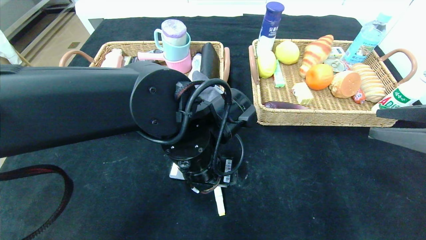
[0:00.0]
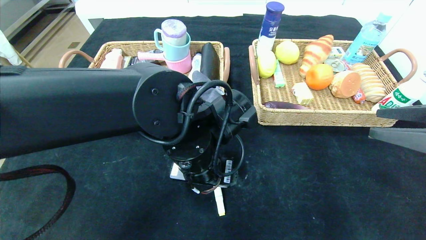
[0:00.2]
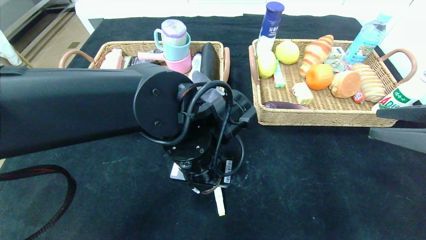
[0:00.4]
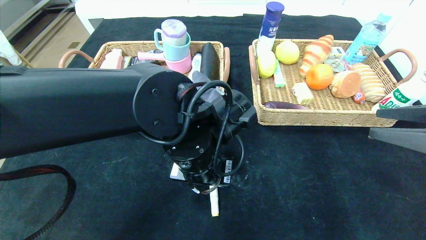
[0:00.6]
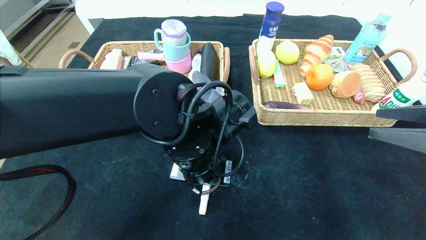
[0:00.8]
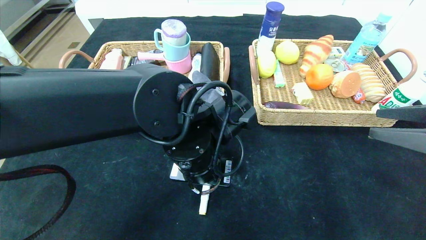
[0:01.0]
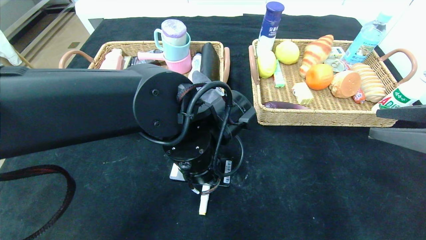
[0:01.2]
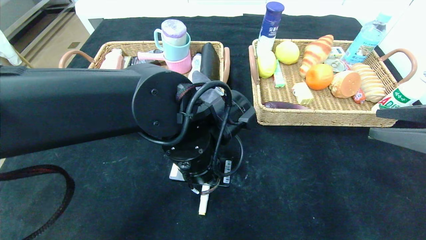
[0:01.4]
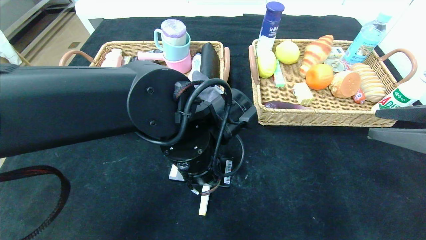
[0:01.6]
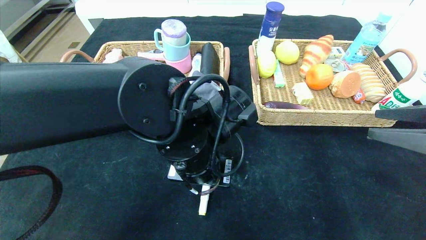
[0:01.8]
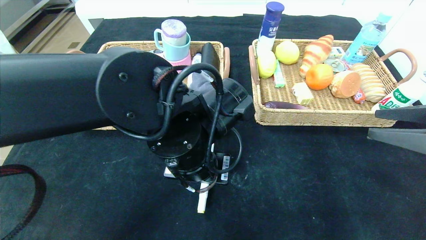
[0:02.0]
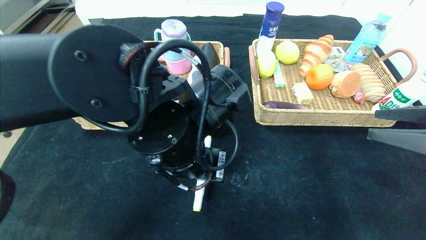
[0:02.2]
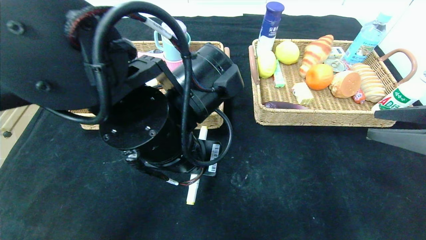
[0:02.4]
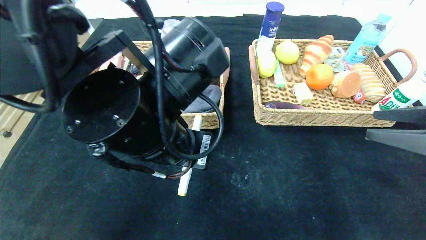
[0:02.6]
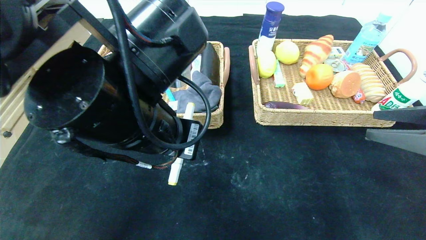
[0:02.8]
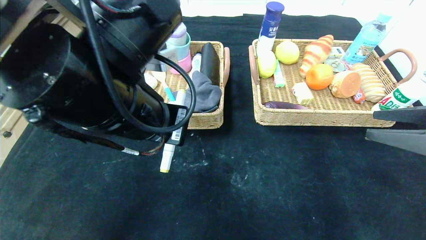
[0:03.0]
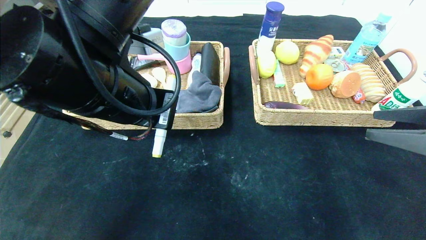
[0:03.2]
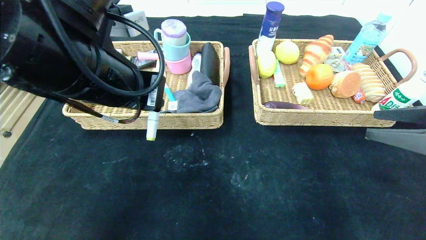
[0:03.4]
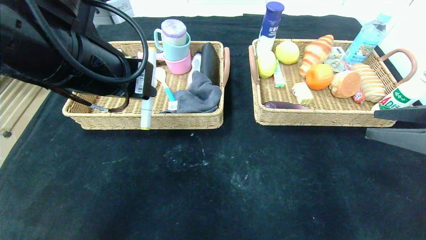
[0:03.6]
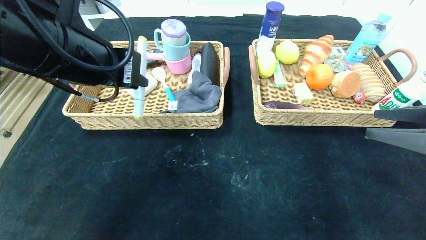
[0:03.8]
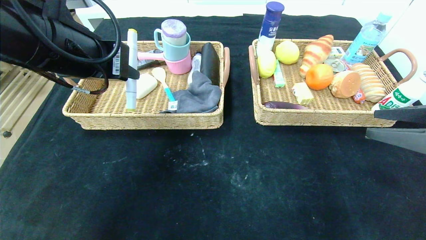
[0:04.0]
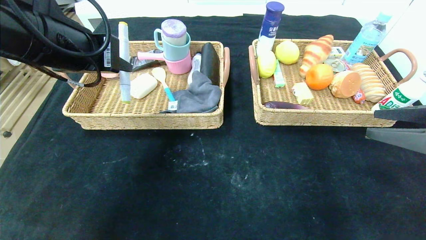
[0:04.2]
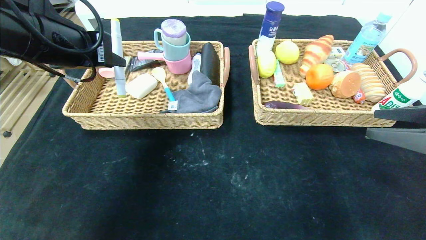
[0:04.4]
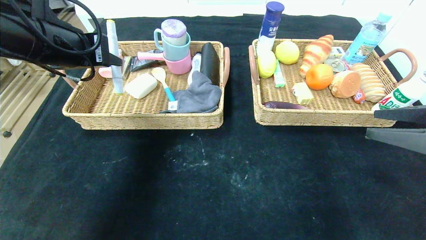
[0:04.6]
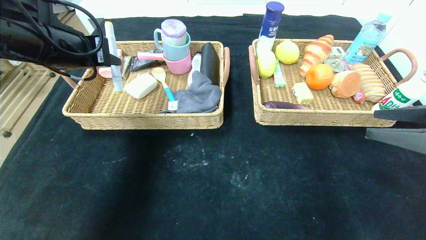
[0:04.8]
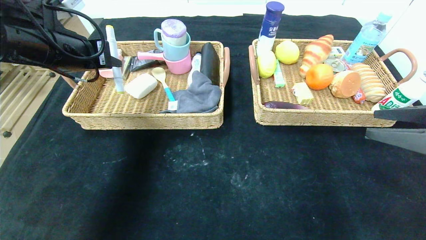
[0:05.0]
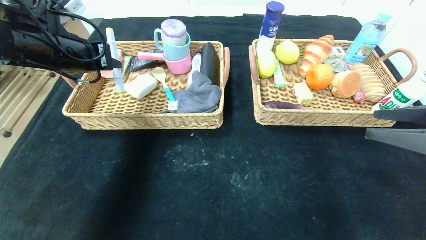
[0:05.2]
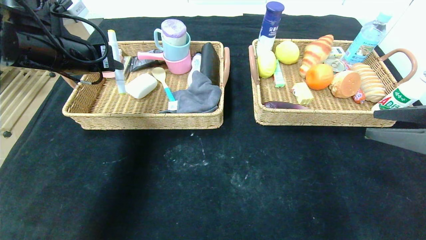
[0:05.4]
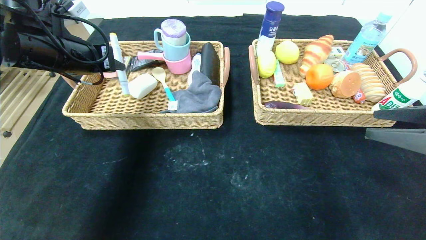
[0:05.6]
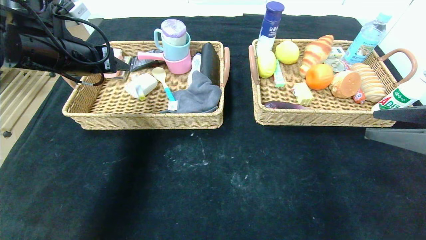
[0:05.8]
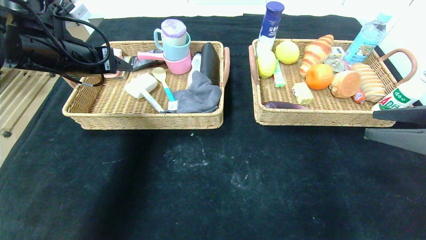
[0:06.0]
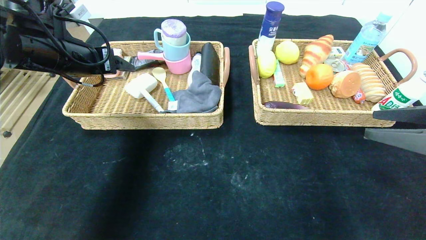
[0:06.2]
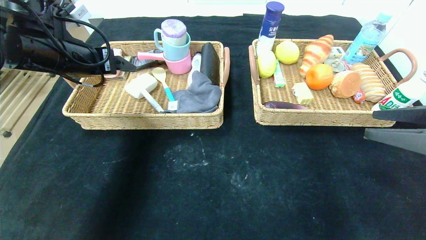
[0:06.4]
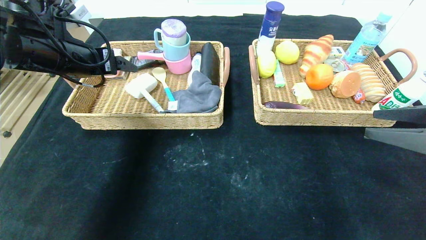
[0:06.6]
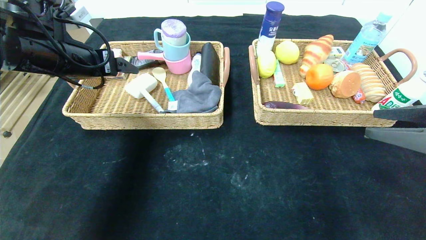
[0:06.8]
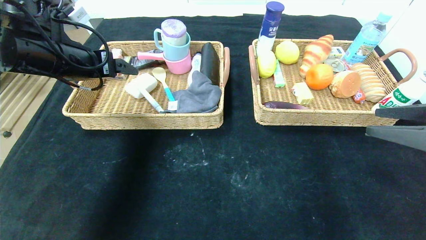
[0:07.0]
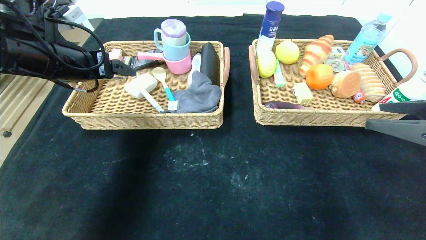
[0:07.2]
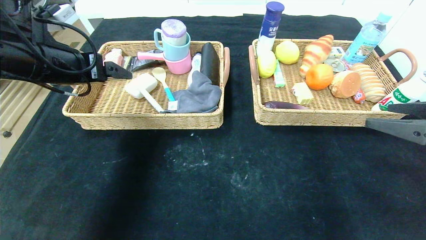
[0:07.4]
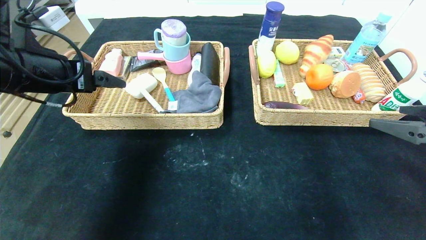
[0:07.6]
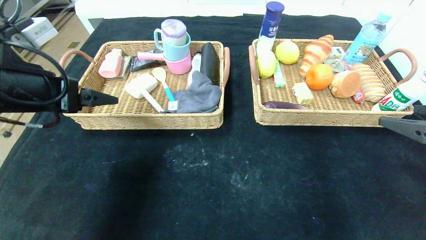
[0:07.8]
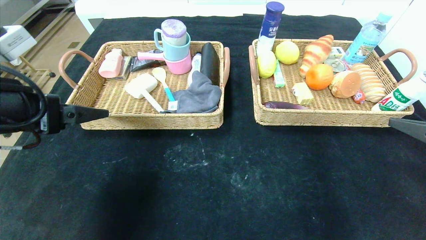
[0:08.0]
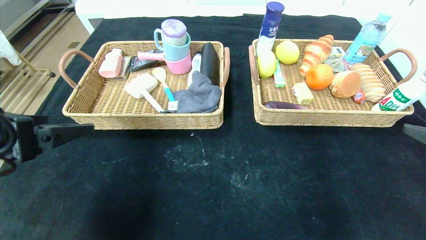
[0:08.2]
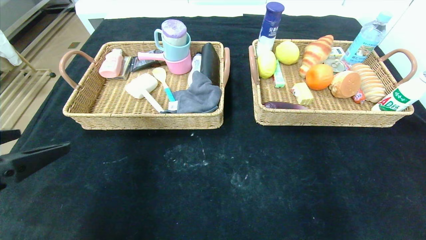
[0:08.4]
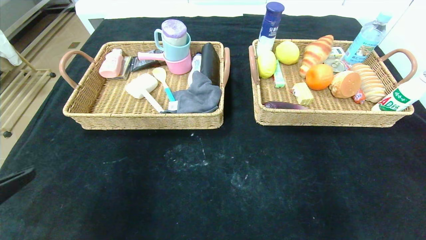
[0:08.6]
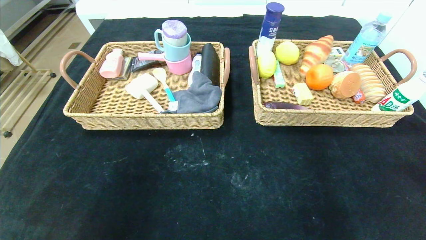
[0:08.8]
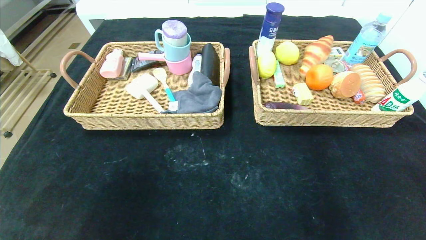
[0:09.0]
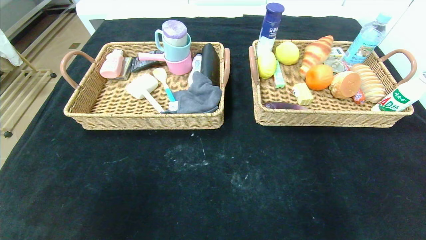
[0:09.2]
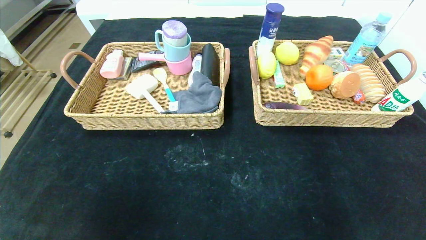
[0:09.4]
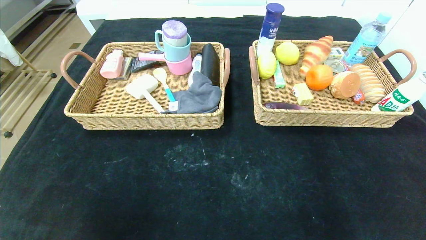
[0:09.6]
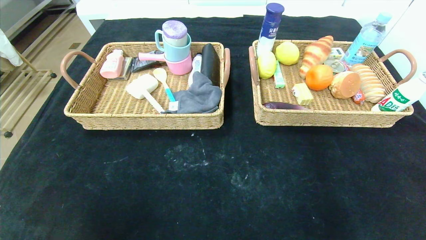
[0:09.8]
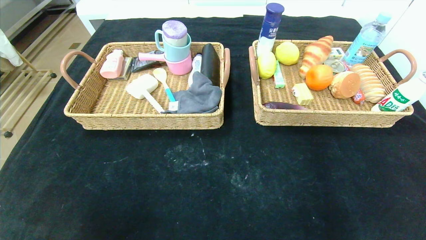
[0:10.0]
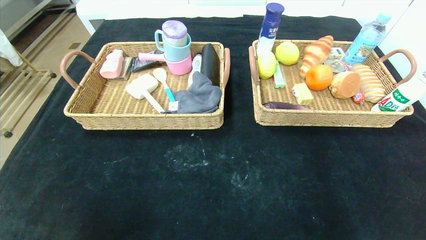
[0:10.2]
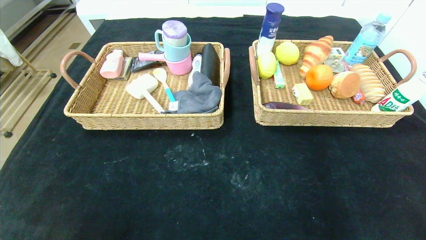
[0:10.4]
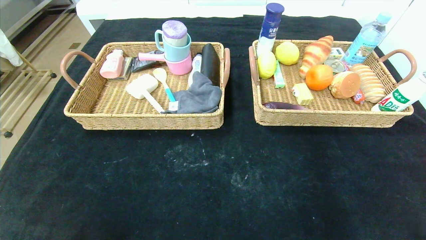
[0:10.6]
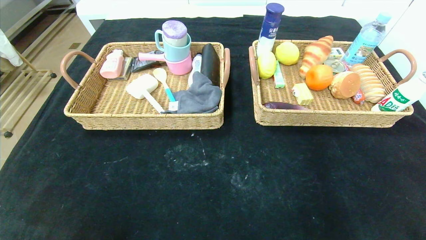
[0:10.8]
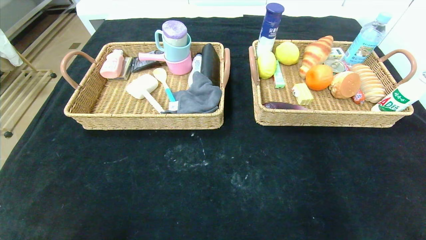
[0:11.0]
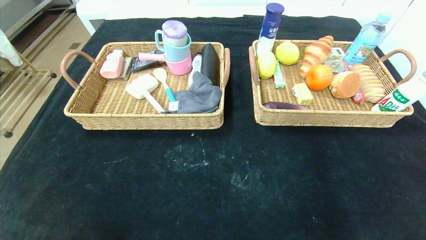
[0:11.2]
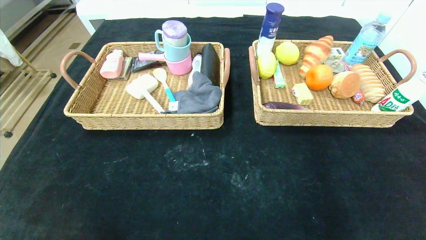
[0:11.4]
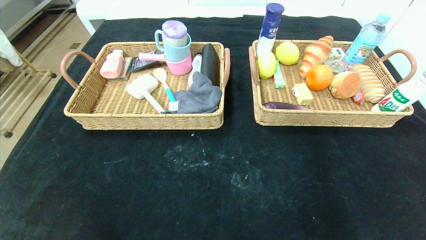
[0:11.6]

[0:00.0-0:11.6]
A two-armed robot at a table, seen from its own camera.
Step, 0:00.0 to 0:06.2: Grasp the yellow marker and put it in the left basket.
0:00.0 to 0:01.4: The left gripper closes.
0:01.4 to 0:02.8: The left gripper goes about 10 cm upward and to the left.
0:02.8 to 0:04.4: The left gripper shifts some 15 cm to the left, forward and upward.
0:04.4 to 0:05.8: The left gripper heads forward, covering about 5 cm, and opens up.
0:05.8 to 0:07.2: The left gripper opens.
0:07.2 to 0:08.8: The left gripper moves backward, some 30 cm, while the right gripper moves backward, approximately 15 cm.
